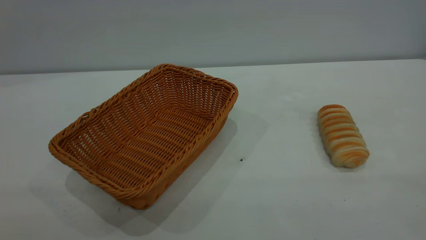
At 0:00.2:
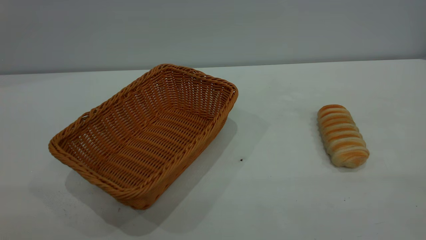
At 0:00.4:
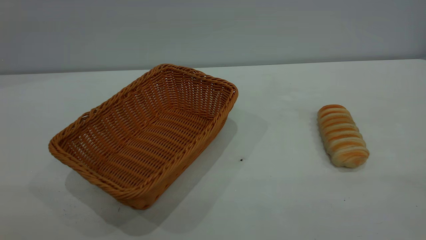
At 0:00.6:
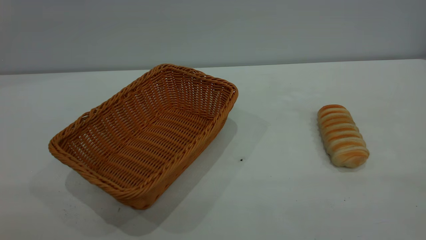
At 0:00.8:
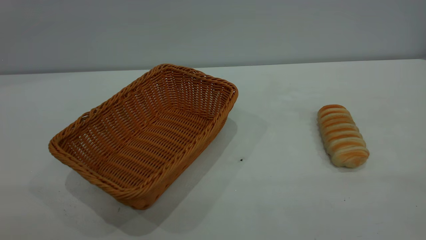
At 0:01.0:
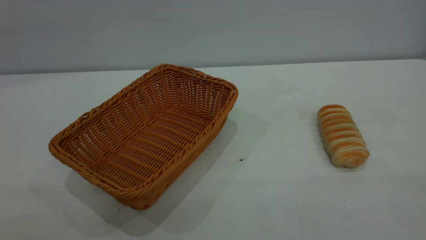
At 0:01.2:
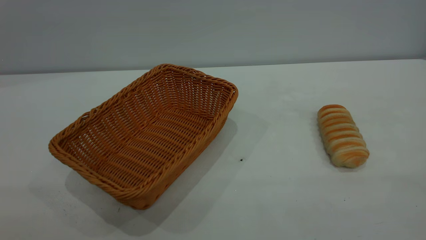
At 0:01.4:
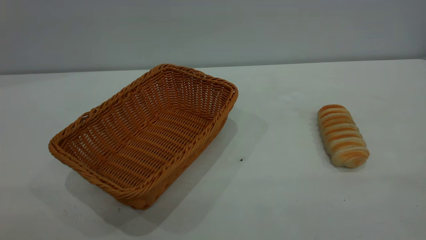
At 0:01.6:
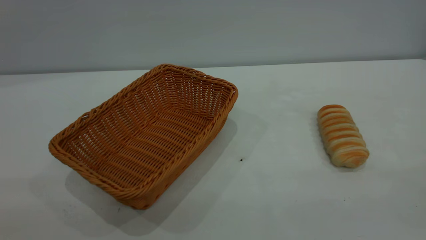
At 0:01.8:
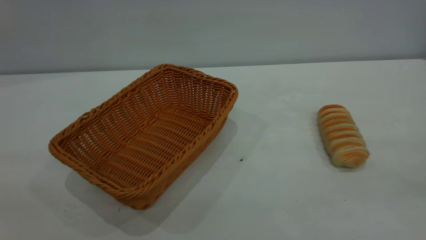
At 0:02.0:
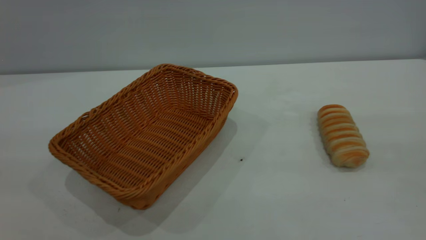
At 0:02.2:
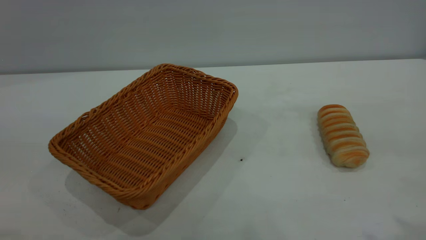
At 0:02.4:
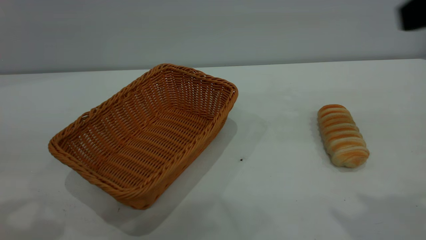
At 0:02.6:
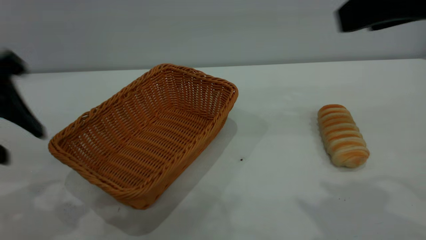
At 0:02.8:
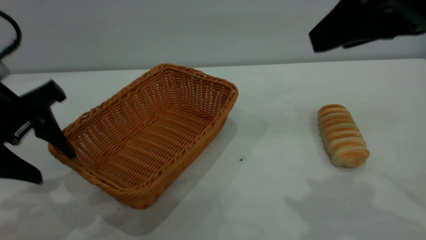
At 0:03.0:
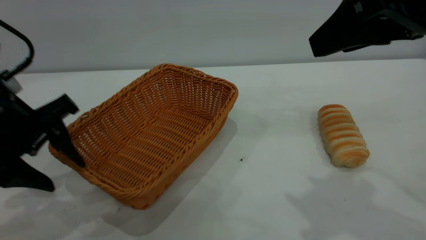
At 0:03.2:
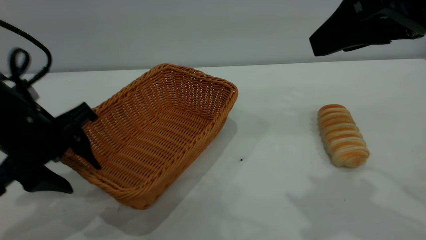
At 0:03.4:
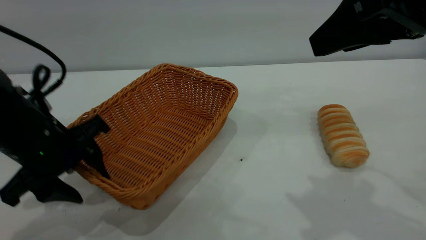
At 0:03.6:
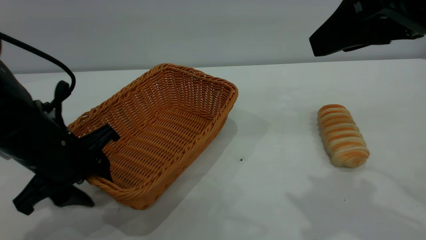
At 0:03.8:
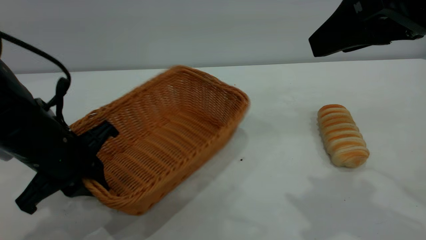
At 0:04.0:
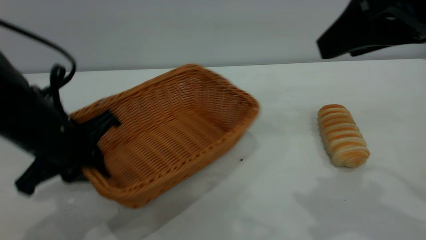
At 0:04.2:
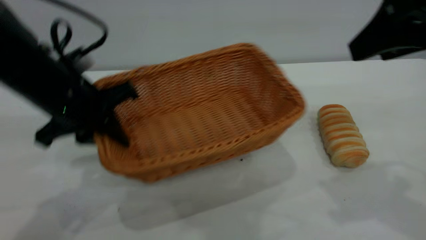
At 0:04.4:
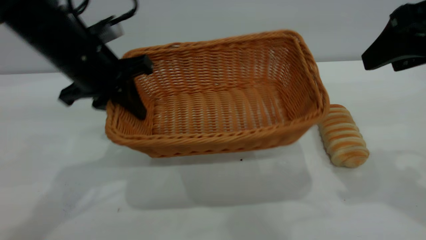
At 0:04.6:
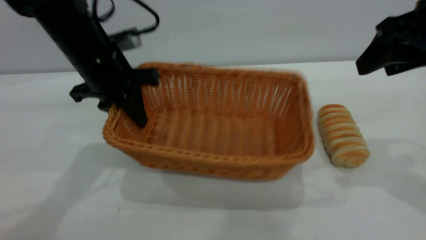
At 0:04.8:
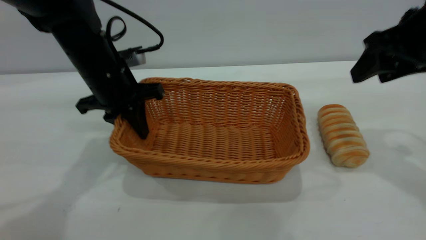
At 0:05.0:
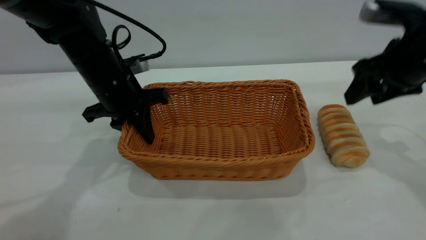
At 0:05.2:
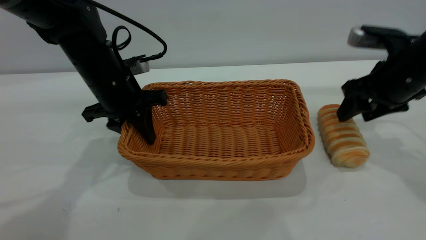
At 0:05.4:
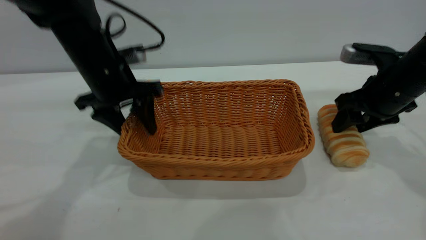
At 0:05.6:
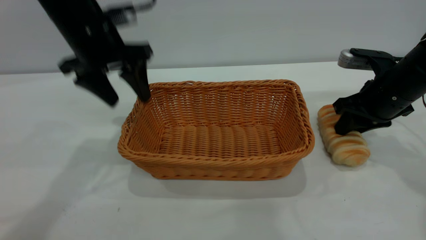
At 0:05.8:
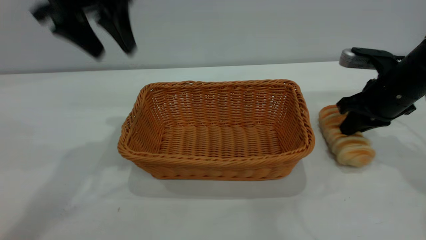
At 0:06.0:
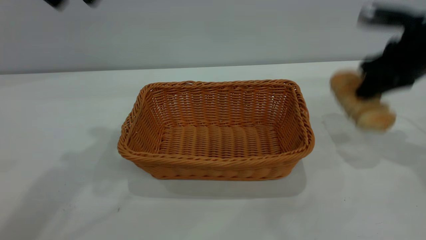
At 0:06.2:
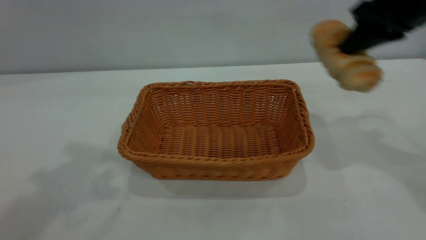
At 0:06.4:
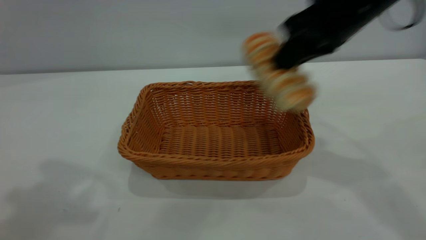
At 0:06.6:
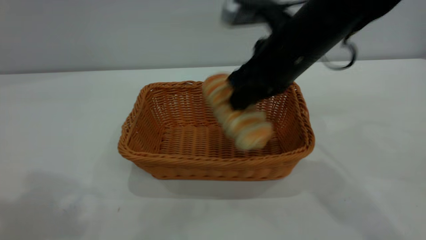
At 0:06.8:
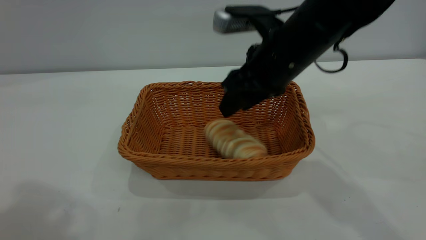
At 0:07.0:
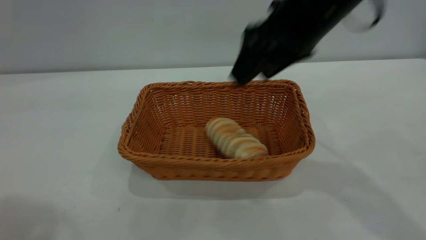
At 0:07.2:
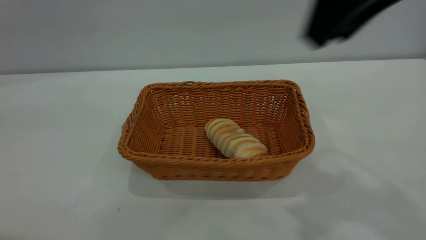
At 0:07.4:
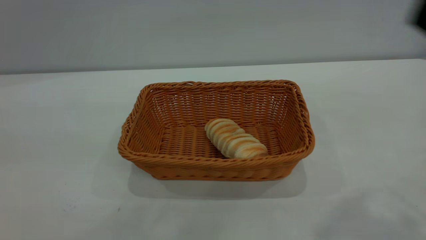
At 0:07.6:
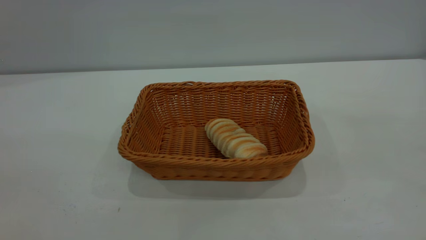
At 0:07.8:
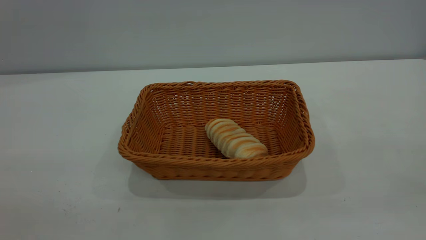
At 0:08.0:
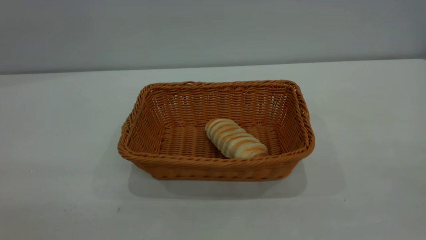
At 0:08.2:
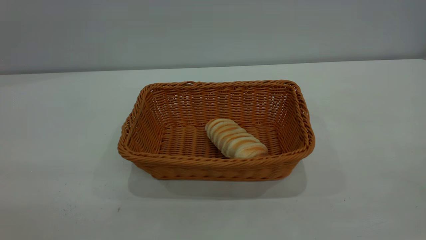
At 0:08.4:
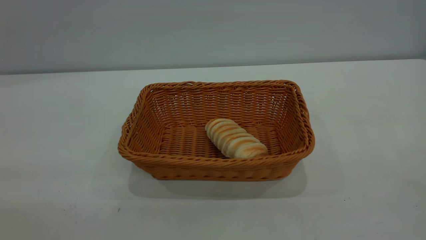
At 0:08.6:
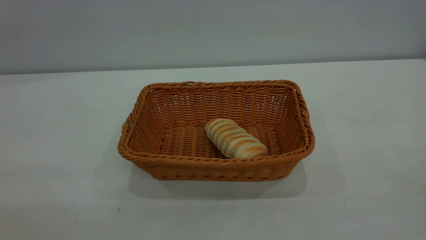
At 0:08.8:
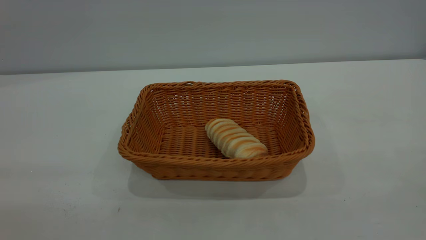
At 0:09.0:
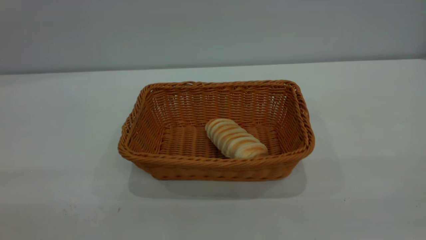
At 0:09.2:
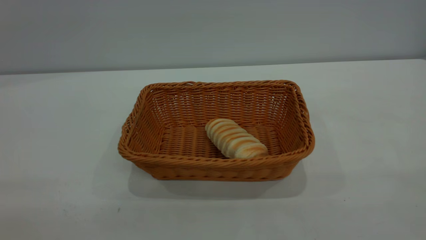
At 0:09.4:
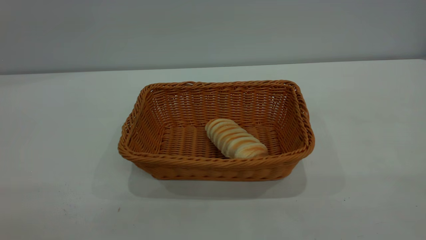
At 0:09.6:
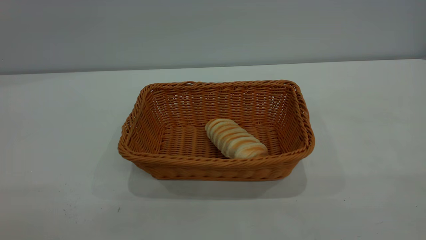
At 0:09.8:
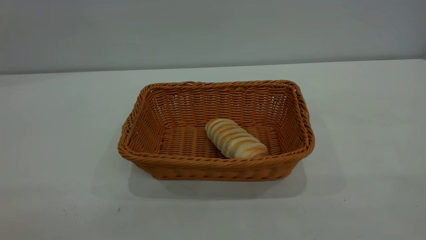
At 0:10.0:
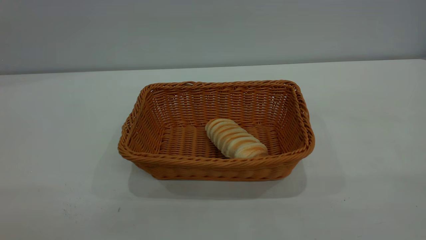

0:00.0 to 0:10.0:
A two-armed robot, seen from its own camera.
Task of the whole recording: One hand grasps the yellow basket and places it in the middle of the table, while the other hand picks up the long bread and puts it into the yellow basket.
Step, 0:00.0 to 0:05.6: Move the basket to the center of view.
Step, 0:06.2 to 0:07.0: place the bread into the basket.
0:00.0 to 0:01.4: Both grippers stay about where they are.
0:01.4 to 0:02.8: The right gripper moves forward, about 25 cm. The left gripper moves forward and downward, roughly 30 cm.
0:02.8 to 0:04.2: The right gripper moves about 5 cm. The left gripper heads forward and to the right, covering roughly 10 cm, and closes.
0:04.2 to 0:05.8: The right gripper moves downward and forward, approximately 20 cm, and closes. Meanwhile the left gripper heads upward and forward, covering some 15 cm, and opens its fingers.
0:05.8 to 0:07.2: The right gripper swings up and down, approximately 25 cm each way, with 2 reversals, and opens, while the left gripper moves backward and upward, some 30 cm.
0:07.2 to 0:08.6: The right gripper moves backward and to the right, some 25 cm.
